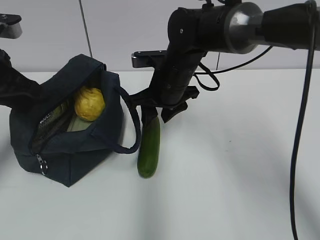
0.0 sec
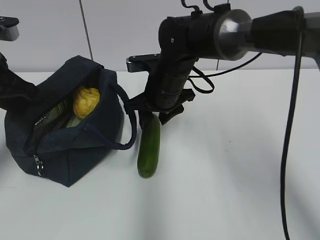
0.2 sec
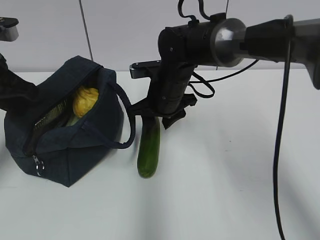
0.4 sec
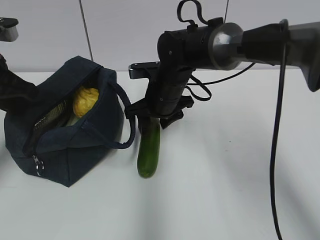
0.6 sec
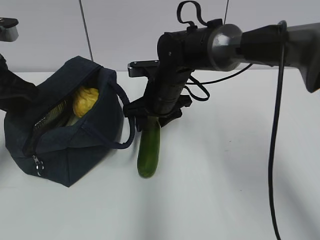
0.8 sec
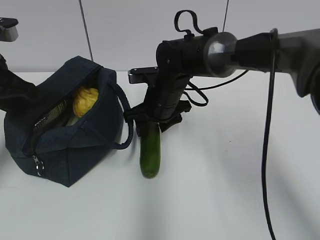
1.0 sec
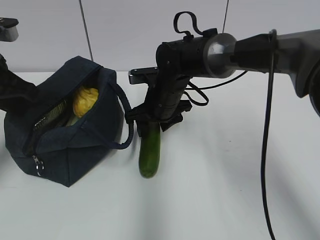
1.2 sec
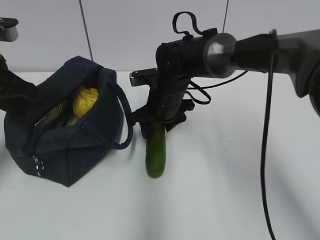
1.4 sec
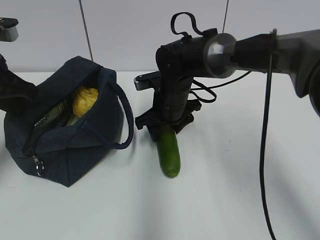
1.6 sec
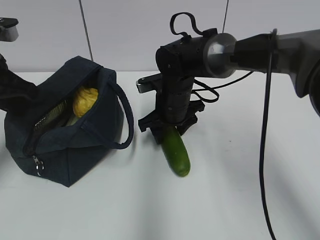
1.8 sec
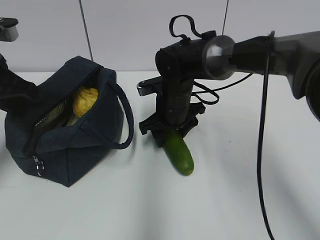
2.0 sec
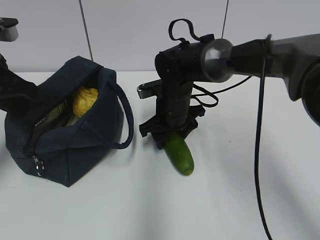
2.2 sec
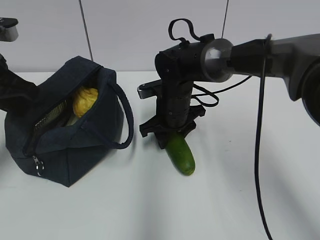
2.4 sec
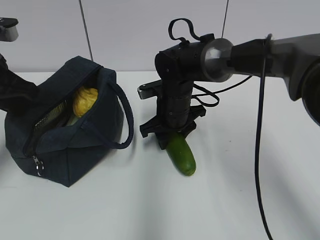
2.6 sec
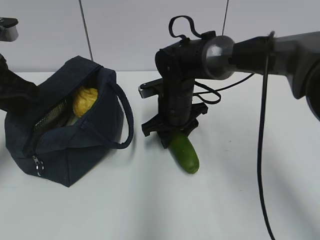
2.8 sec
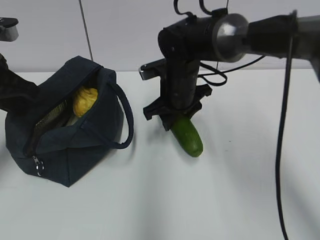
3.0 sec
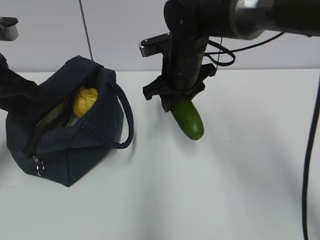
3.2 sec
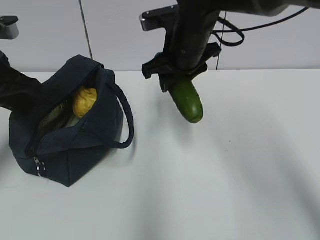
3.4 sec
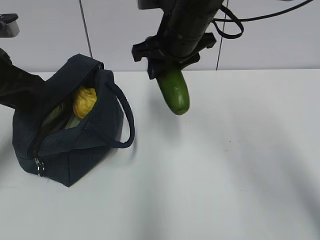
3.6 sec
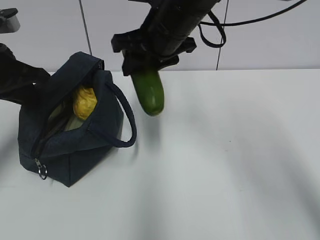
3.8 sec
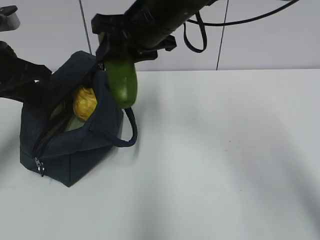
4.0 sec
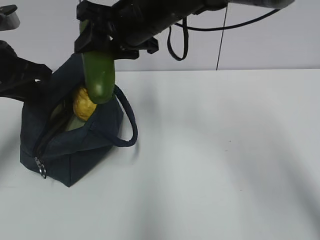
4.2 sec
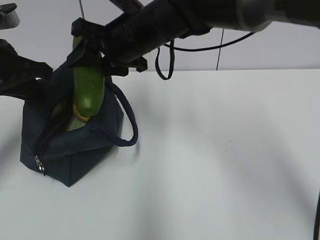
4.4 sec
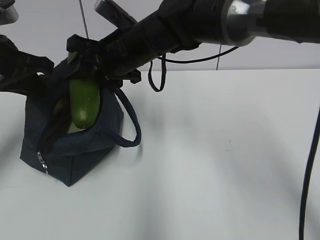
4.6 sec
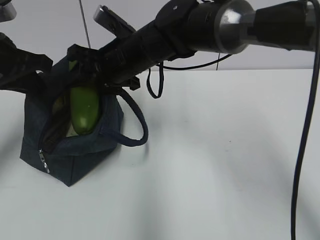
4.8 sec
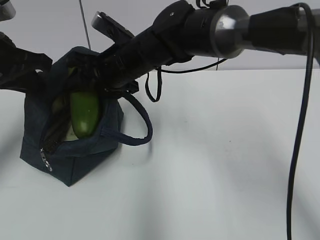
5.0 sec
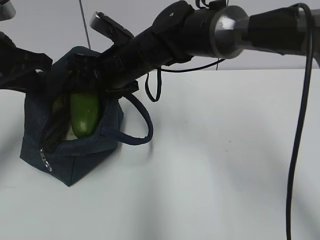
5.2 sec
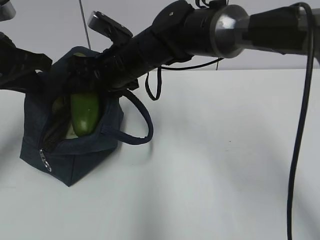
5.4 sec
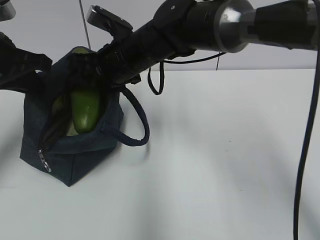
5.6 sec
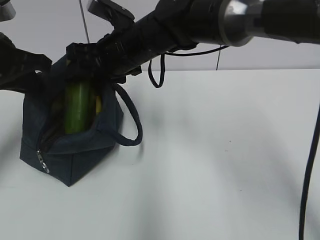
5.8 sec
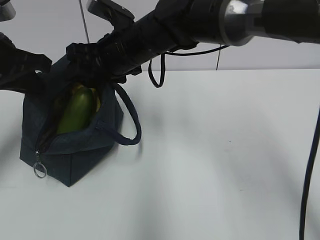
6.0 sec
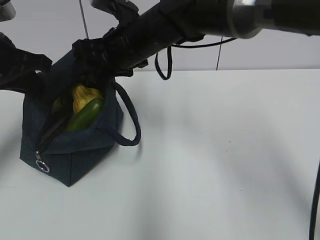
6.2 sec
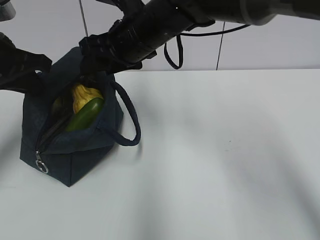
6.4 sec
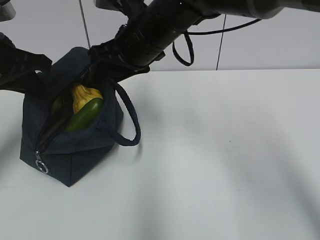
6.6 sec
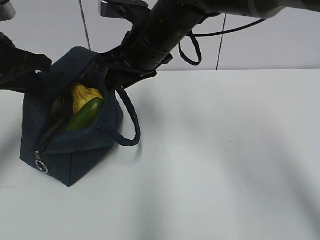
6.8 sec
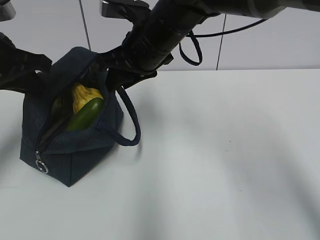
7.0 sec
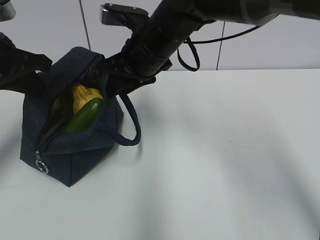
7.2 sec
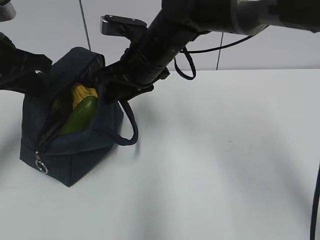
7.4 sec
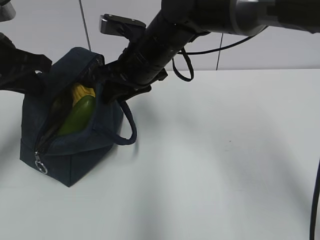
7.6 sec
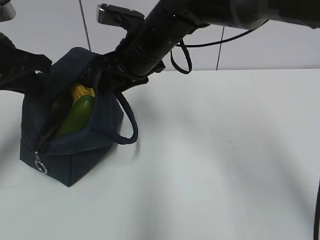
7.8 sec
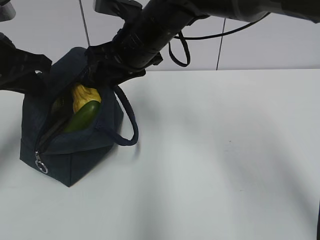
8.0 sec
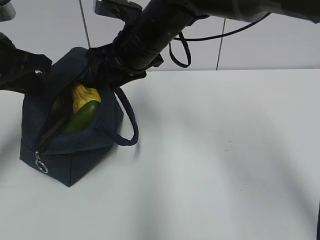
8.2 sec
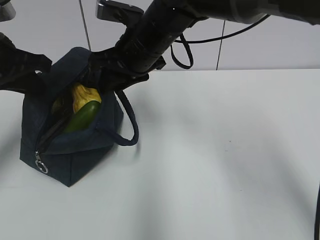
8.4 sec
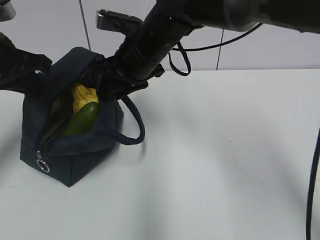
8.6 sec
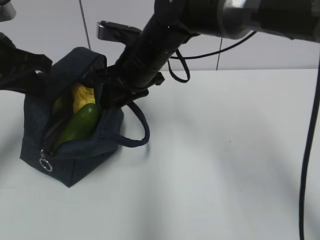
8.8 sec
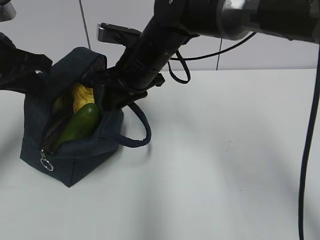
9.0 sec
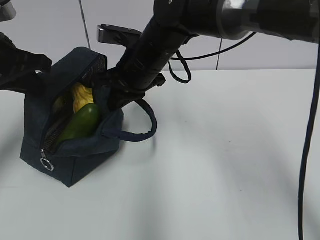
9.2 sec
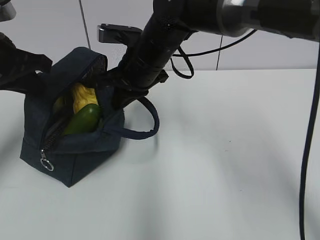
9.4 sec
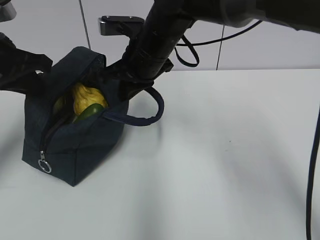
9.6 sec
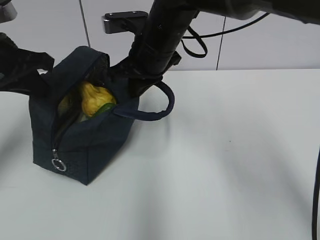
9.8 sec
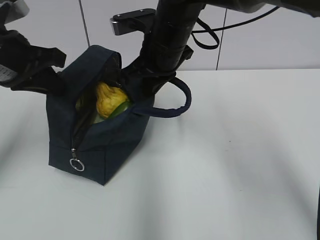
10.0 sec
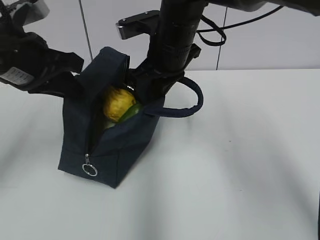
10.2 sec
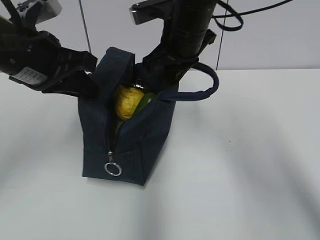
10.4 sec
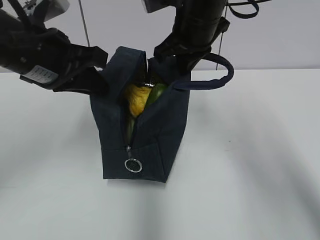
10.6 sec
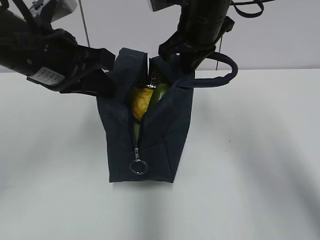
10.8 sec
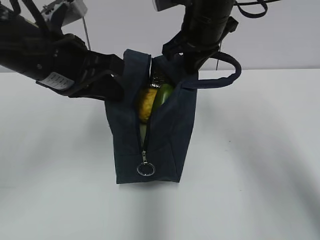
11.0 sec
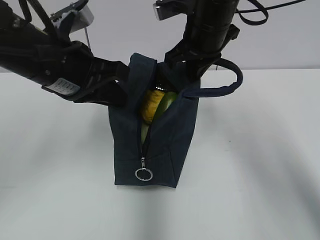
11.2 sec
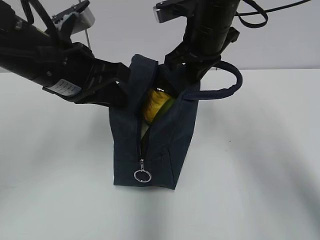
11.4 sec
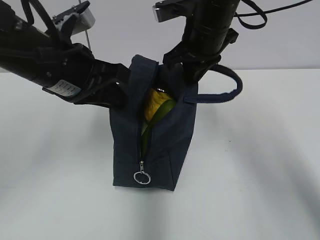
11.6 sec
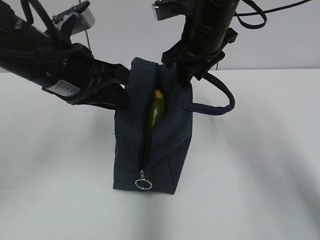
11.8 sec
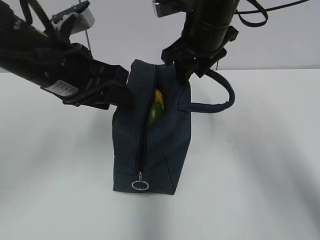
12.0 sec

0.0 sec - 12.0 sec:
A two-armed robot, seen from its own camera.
Step, 0.0 sec - 2.6 sec: Grab the cucumber with your right hand.
Step, 6.2 sec - 9.4 sec: Grab the lunch bag with your right hand.
Step, 9.6 sec - 11.8 sec: Move the lunch bag to the right.
0.0 sec - 1.6 sec: The right gripper goes approximately 5 cm downward.
1.6 sec - 3.0 sec: The grippers stay close to where they were, moving slightly.
3.0 sec - 4.4 sec: The right gripper travels upward and to the left by about 15 cm.
4.4 sec - 6.0 sec: There are only small adjustments of the grippers.
7.6 sec - 9.0 sec: The grippers move only a little.
9.0 sec - 10.4 sec: The left gripper shifts about 5 cm to the right; the right gripper shifts roughly 10 cm to the right and upward, and closes up.
10.4 sec - 12.0 sec: The left gripper opens its fingers; the right gripper opens up.

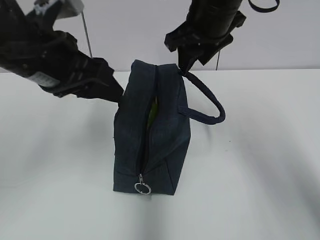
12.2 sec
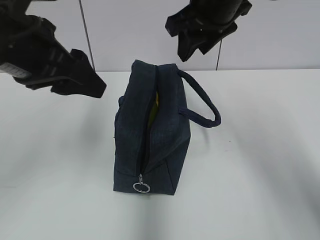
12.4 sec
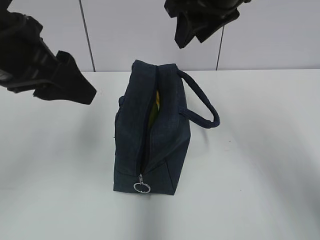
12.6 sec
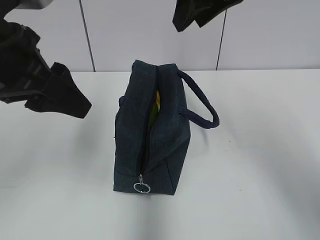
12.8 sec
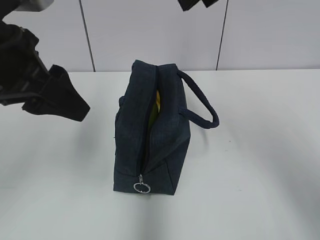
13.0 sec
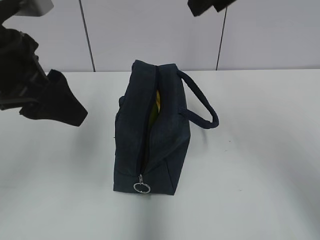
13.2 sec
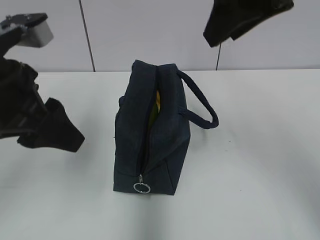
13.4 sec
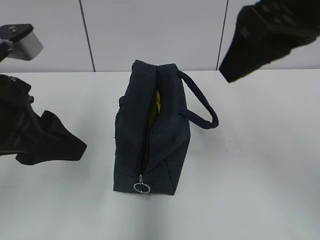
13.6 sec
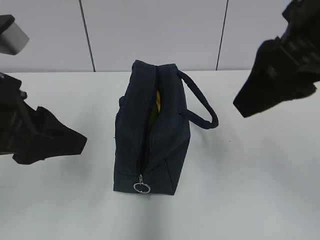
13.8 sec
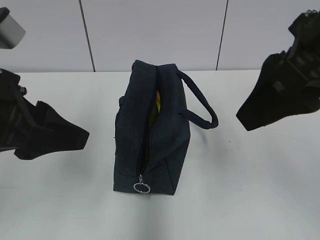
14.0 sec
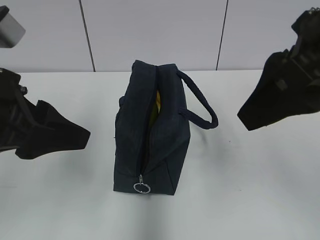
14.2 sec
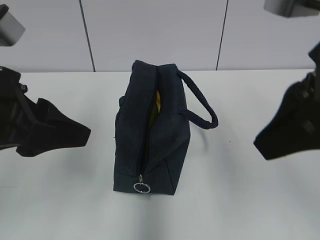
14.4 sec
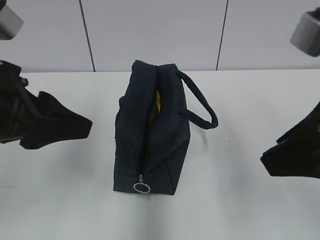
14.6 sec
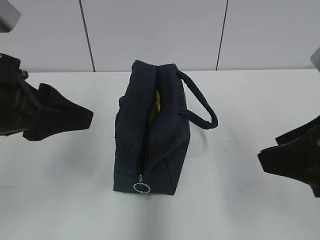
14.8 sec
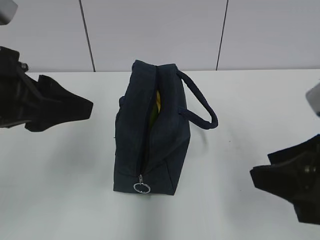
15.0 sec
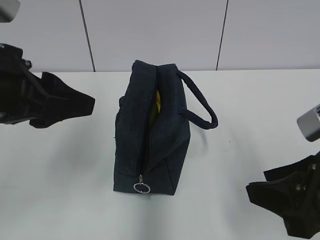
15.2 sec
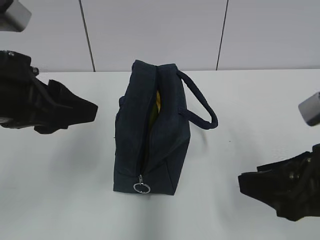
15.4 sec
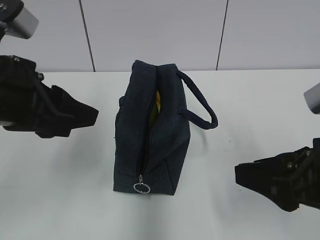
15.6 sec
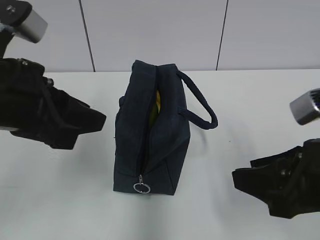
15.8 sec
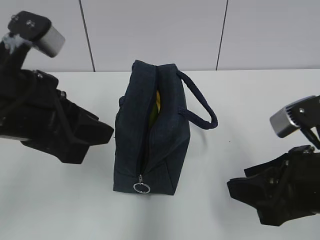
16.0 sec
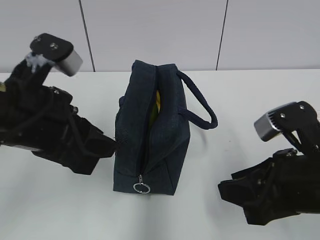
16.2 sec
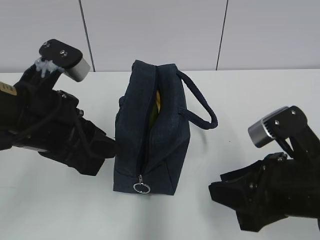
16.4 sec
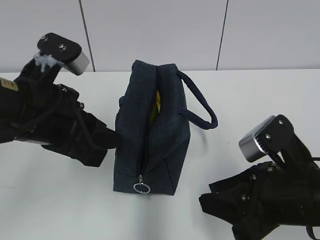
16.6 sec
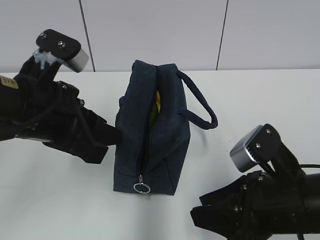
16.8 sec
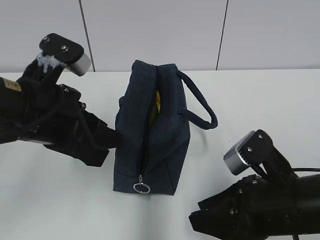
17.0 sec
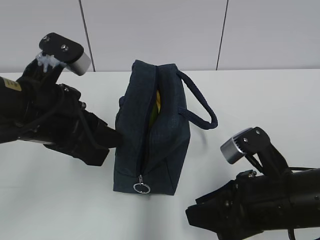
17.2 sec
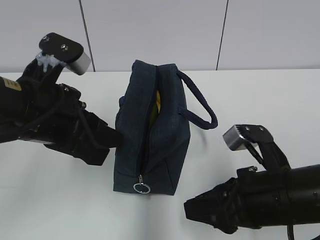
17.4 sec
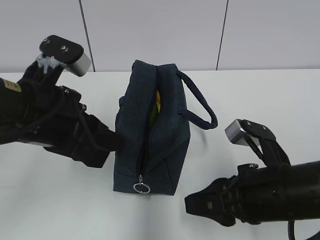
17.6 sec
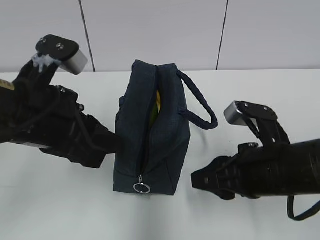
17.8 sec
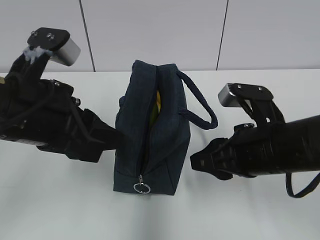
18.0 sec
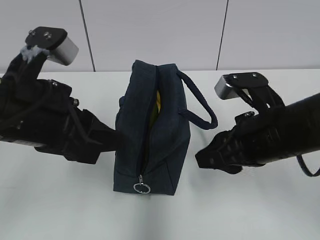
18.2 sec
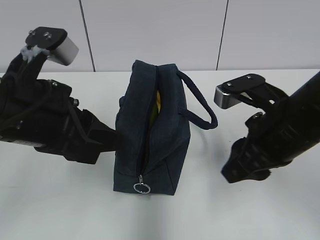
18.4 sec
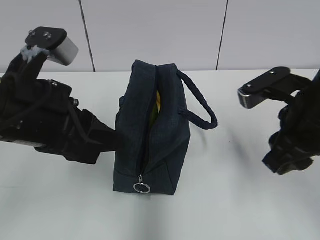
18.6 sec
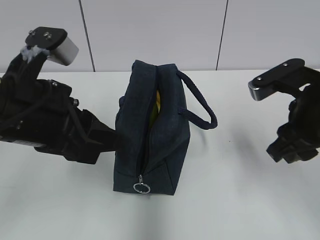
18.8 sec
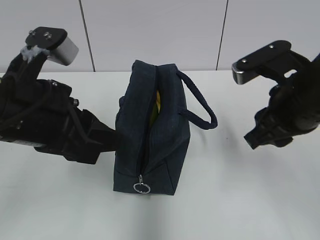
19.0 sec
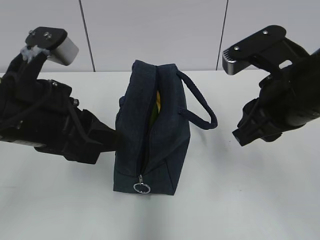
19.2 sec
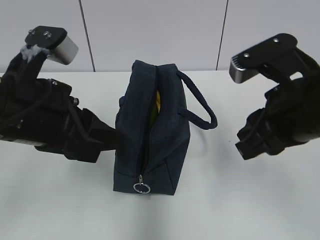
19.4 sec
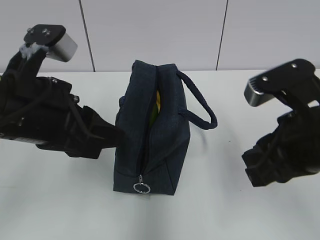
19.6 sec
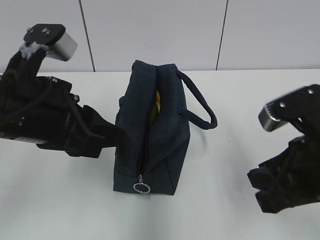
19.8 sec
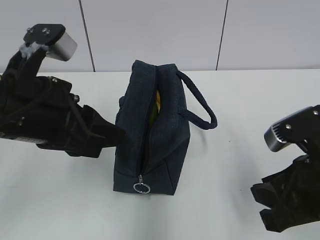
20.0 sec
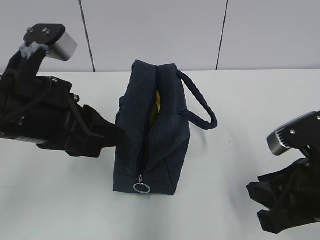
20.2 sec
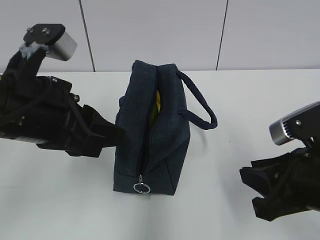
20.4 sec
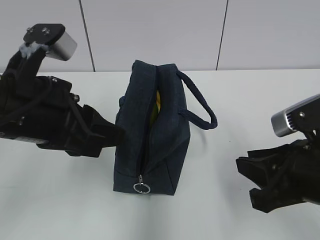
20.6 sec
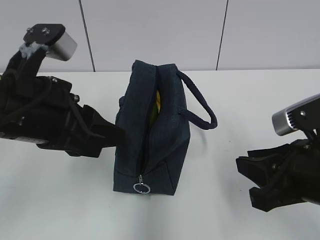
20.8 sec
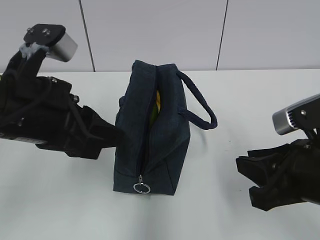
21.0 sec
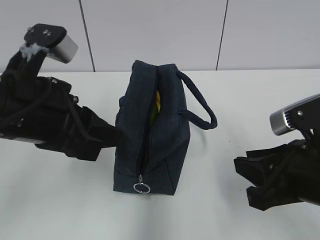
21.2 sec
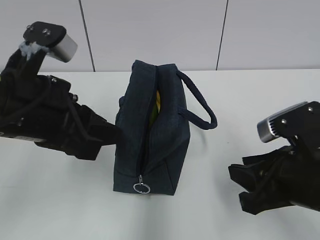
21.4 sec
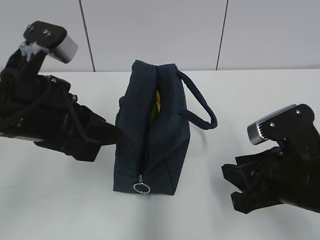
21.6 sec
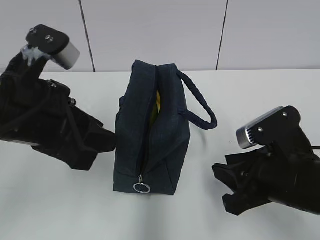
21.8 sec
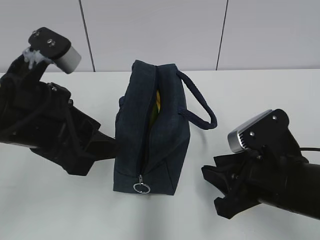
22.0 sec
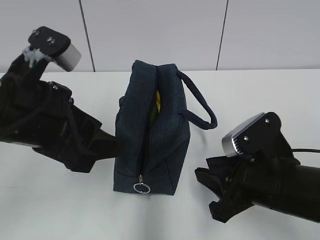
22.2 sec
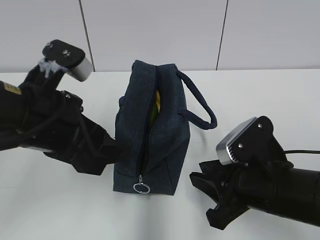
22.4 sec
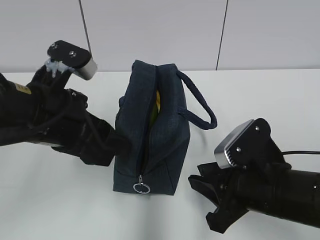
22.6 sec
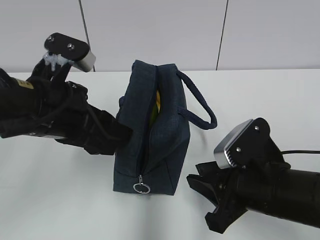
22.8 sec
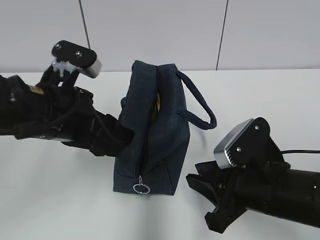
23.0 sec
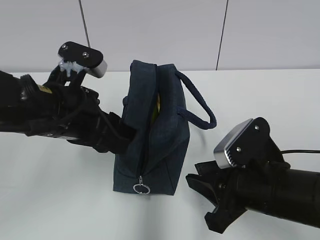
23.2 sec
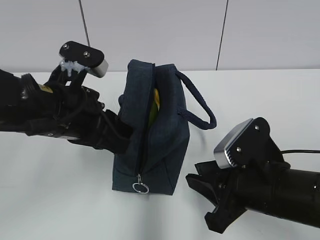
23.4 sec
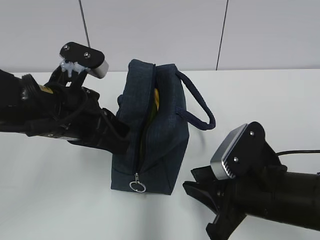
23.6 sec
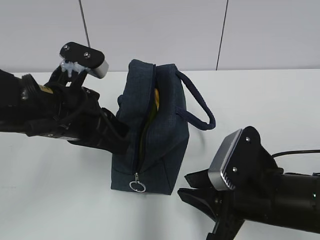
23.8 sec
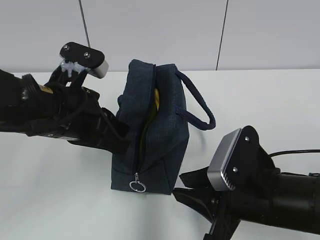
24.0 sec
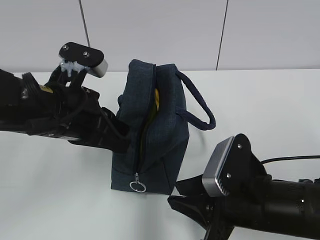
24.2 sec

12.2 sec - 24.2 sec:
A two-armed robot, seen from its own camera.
12.2 sec - 13.8 sec: The right gripper heads backward, covering approximately 20 cm. The left gripper shifts about 10 cm backward.
13.8 sec - 15.2 sec: The right gripper shifts approximately 15 cm downward and backward.
15.2 sec - 16.6 sec: The right gripper heads downward, covering some 5 cm. The left gripper moves roughly 5 cm.
16.6 sec - 18.2 sec: The right gripper travels forward by some 5 cm.
18.2 sec - 19.8 sec: The right gripper moves backward, about 5 cm.
19.8 sec - 21.2 sec: The grippers make only small movements.
21.2 sec - 22.6 sec: The right gripper goes about 5 cm downward. The left gripper opens its fingers.
22.6 sec - 24.2 sec: The left gripper closes its fingers.
